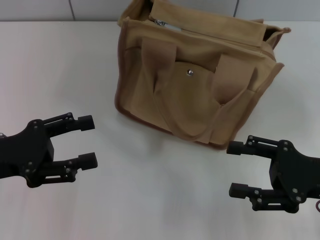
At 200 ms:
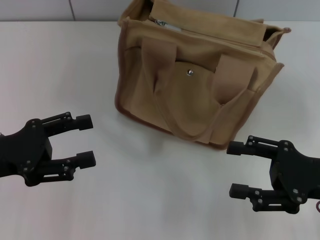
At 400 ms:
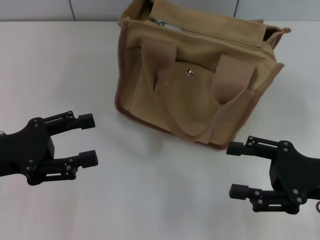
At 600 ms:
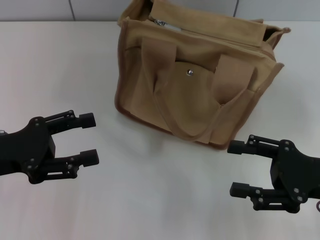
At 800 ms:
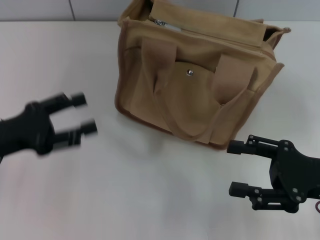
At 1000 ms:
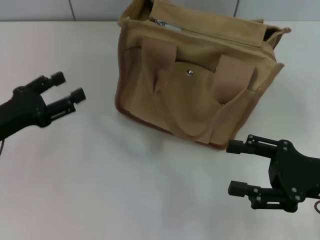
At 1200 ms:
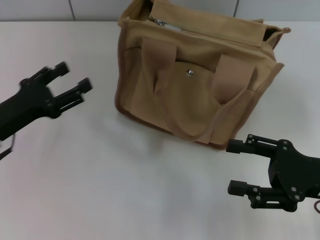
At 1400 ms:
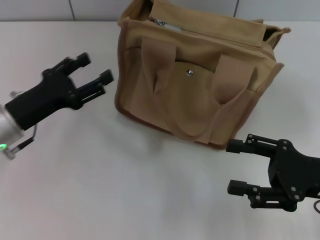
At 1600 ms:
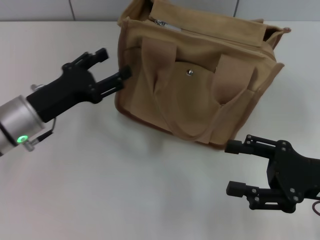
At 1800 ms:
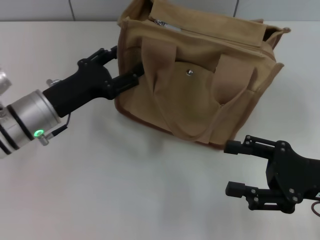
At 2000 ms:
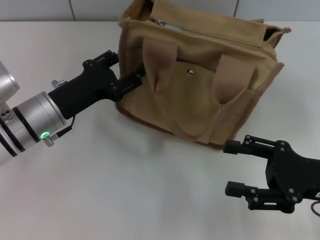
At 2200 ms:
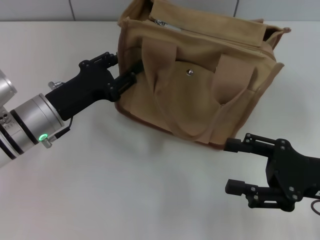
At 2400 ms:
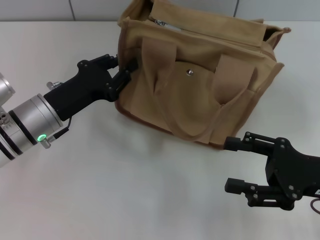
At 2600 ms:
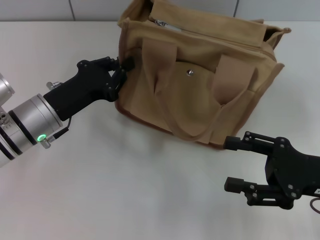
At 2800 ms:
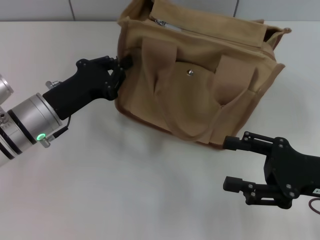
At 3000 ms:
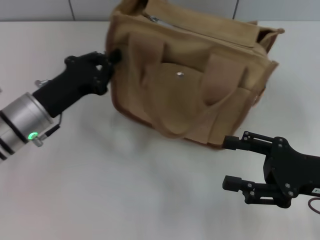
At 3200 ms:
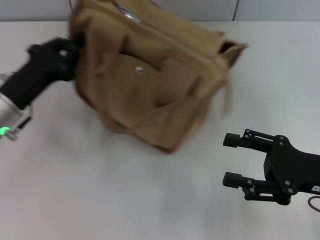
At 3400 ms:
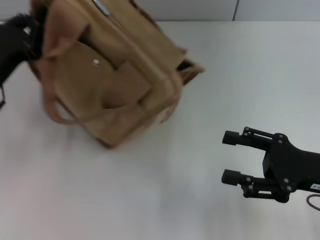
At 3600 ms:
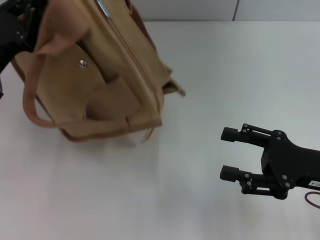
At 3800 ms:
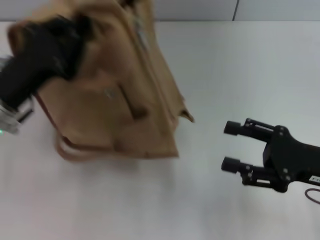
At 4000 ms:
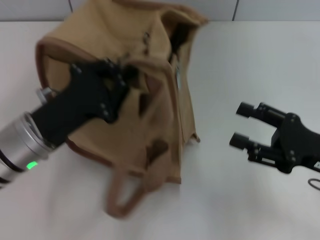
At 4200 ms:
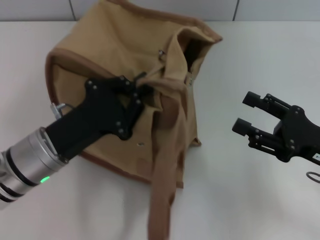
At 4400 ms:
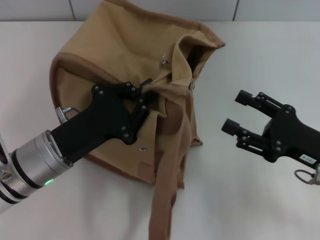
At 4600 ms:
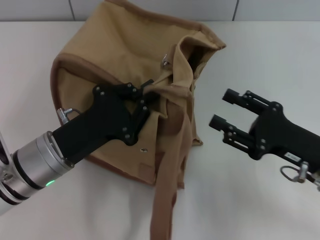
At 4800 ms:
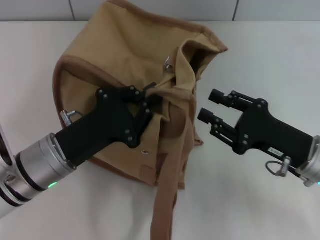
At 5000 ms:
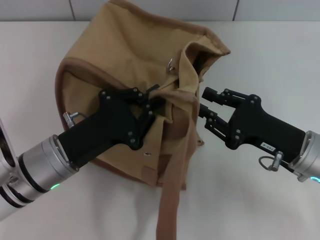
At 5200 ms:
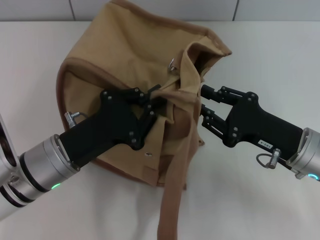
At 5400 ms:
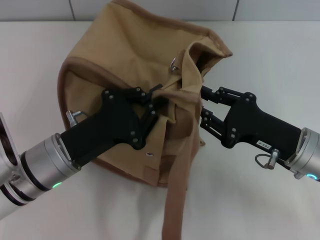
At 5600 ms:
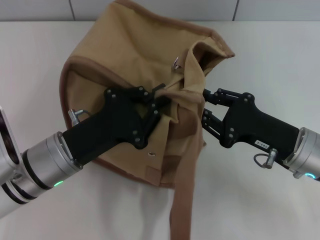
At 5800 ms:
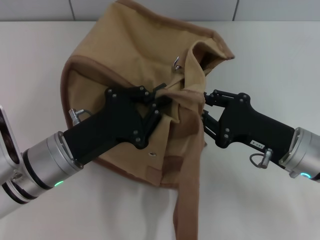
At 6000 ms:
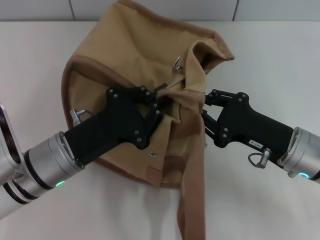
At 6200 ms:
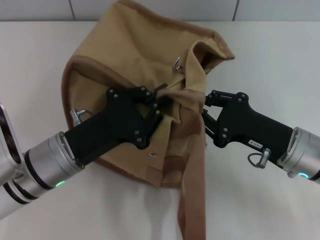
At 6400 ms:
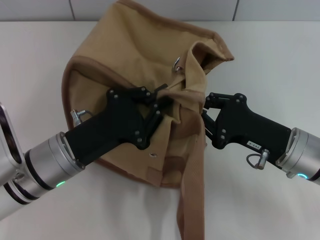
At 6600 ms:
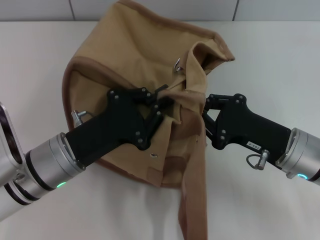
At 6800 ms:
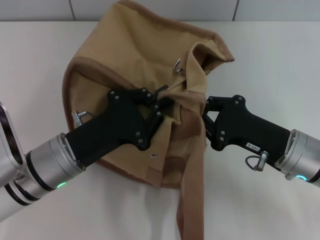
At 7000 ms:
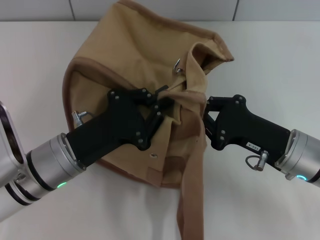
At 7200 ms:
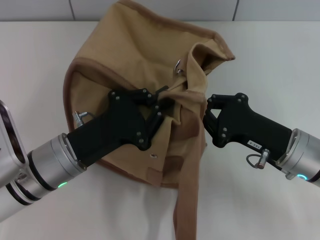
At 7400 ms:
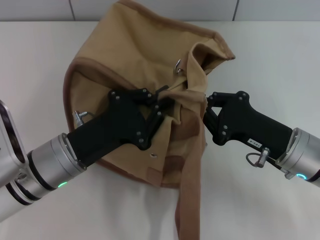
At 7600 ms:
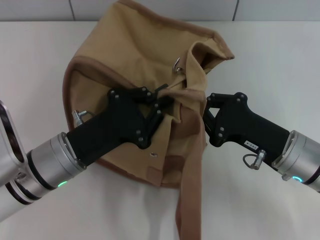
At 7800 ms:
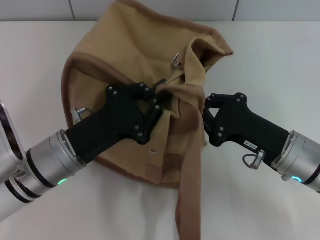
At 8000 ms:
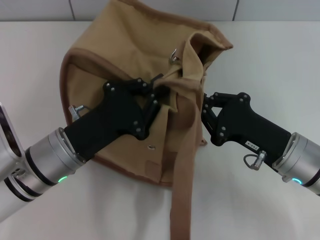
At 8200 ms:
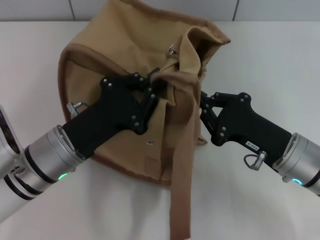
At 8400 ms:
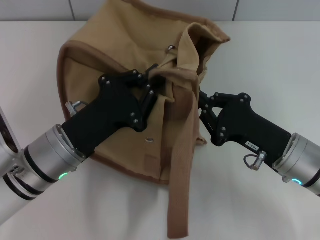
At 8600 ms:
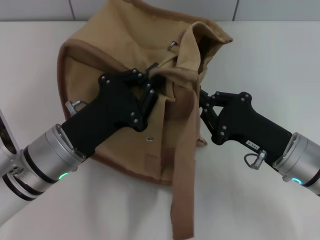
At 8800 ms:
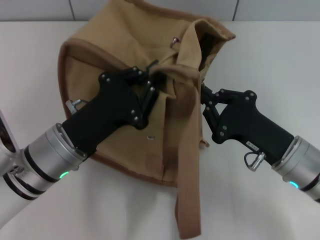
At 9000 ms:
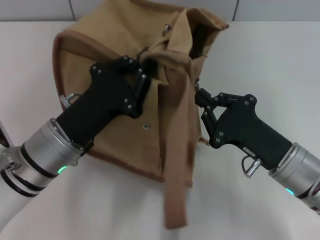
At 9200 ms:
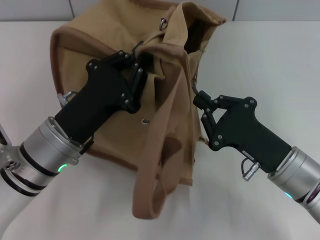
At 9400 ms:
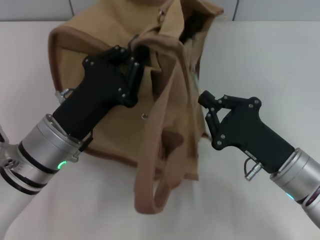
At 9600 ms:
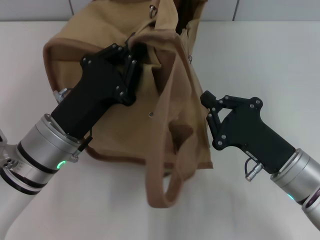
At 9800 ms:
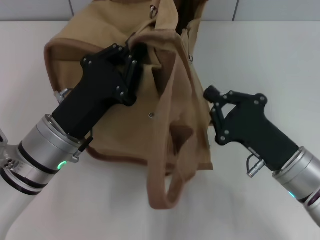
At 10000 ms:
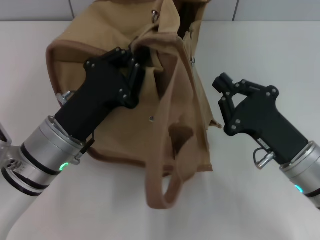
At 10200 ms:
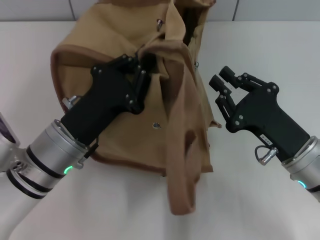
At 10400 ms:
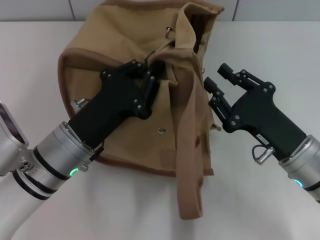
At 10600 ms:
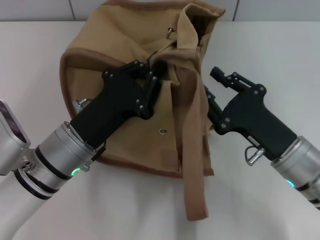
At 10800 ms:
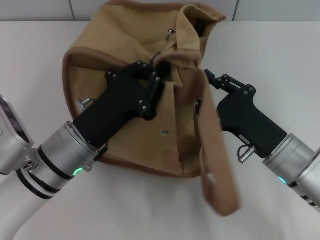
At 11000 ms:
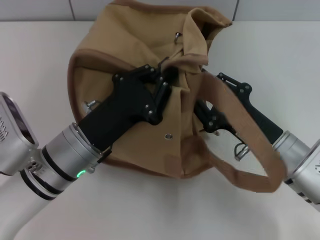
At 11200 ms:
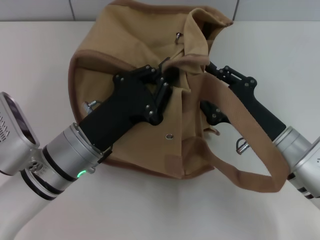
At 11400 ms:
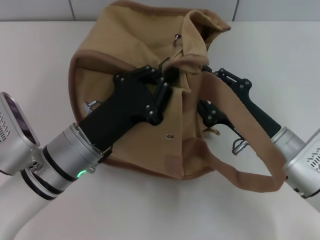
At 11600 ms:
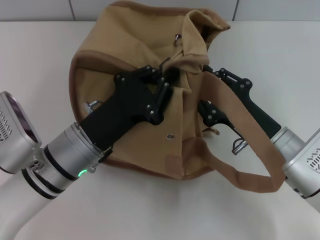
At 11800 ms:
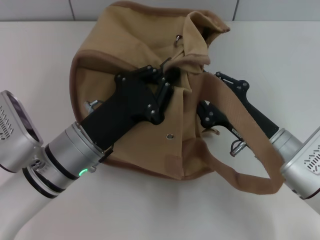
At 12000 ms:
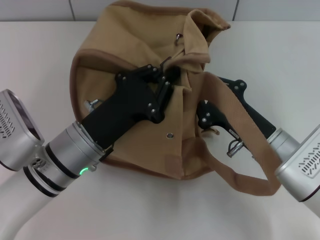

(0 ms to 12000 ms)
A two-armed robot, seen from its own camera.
0 ms - 1600 ms: The left gripper goes about 10 cm forward and to the right.
1600 ms - 3000 ms: The left gripper closes.
3000 ms - 4400 ms: The left gripper is displaced backward by some 5 cm.
4400 ms - 6000 ms: The right gripper shifts about 5 cm to the left, and closes.
6000 ms - 7600 ms: Both grippers stay put.

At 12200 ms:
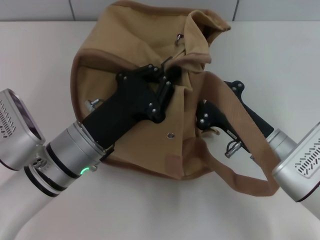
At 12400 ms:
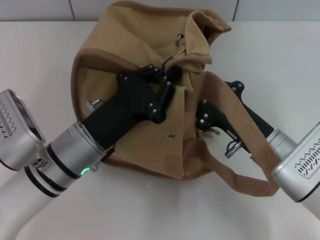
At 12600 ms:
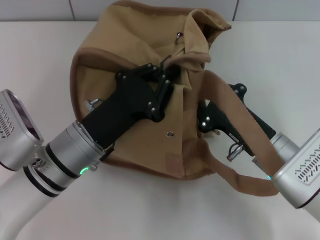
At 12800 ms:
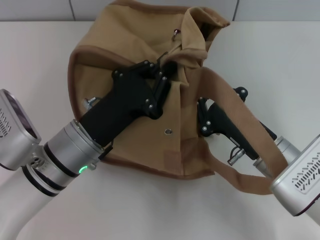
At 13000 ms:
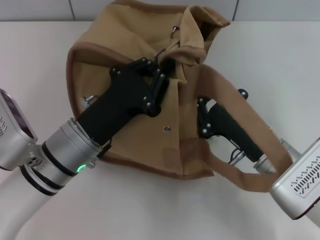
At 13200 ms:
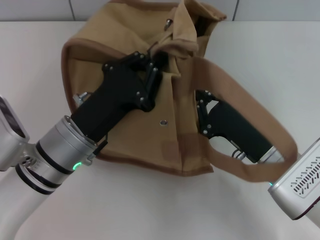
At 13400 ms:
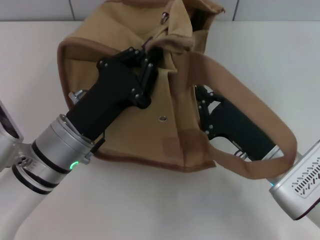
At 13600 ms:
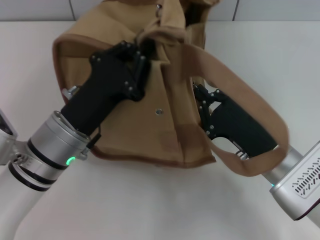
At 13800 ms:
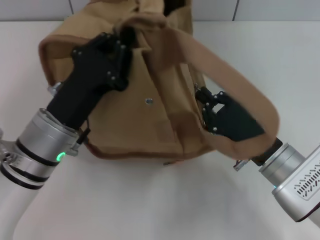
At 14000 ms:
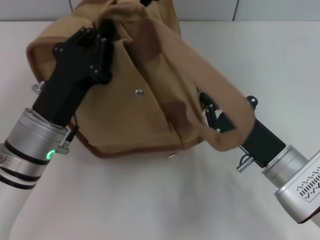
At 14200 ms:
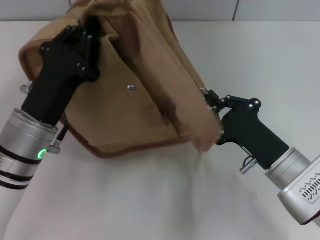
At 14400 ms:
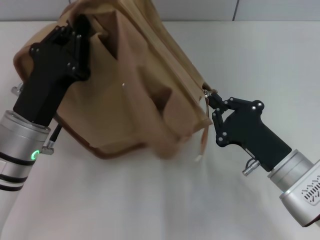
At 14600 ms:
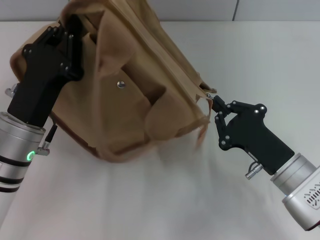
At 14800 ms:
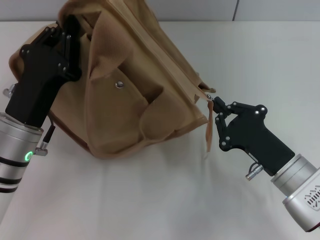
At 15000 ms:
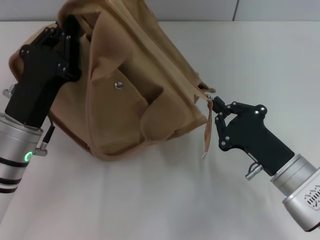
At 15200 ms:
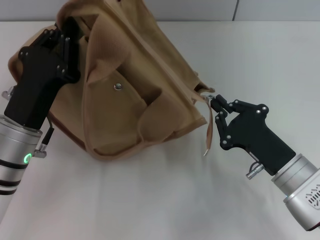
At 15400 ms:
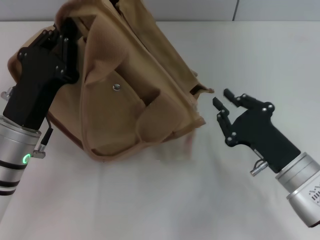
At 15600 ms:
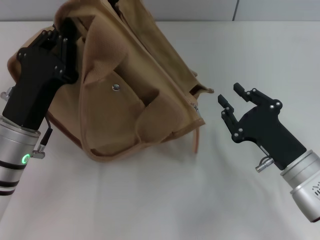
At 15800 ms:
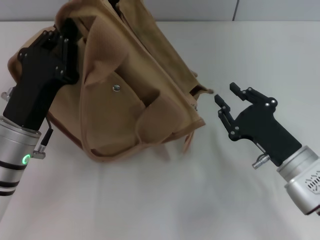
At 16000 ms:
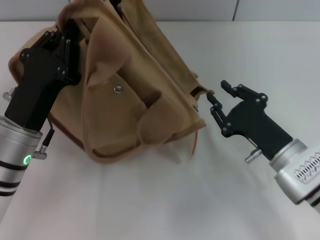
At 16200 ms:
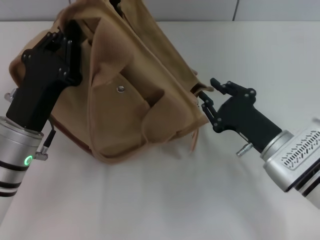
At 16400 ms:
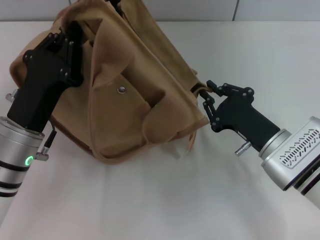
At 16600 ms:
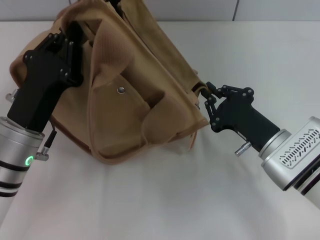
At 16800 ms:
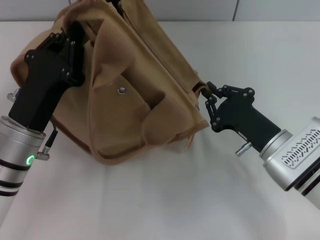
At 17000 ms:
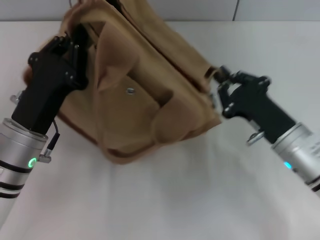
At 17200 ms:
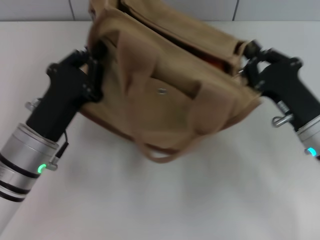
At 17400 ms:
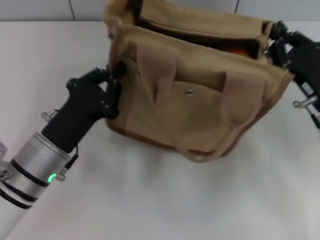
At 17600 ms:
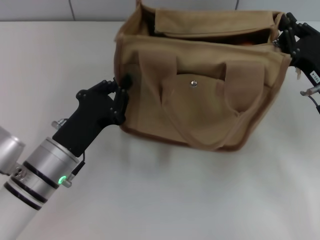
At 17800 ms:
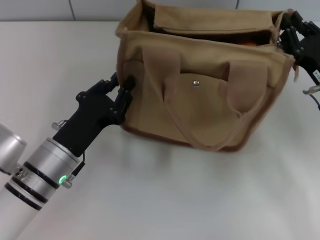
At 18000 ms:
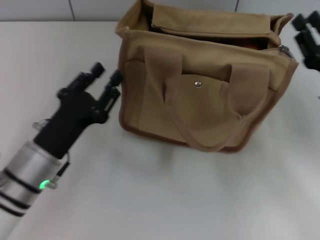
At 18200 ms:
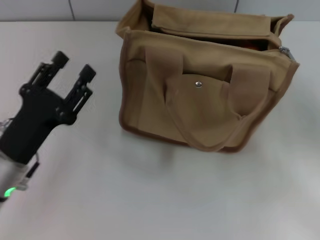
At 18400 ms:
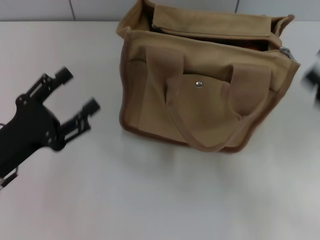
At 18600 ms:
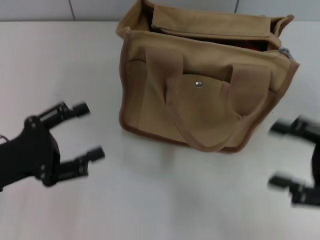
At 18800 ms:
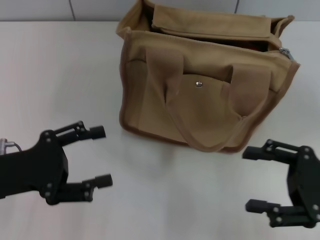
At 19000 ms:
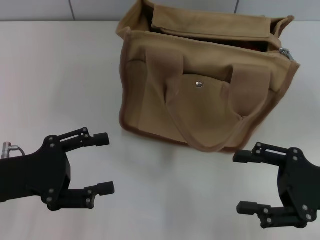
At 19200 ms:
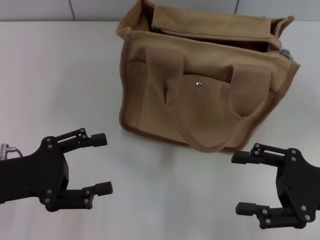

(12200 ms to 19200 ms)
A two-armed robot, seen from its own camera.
Step, 12200 ms - 15800 ms: Pull open the zipper with your right hand.
Step, 16000 ms - 17800 ms: Grab the bag with your left hand.
15000 ms - 16400 ms: The right gripper opens.
16400 ms - 17800 ms: The right gripper heads to the right, covering roughly 10 cm.
17800 ms - 19200 ms: The left gripper travels to the left and upward by roughly 10 cm, and opens up. The right gripper moves backward, some 10 cm, and opens up.

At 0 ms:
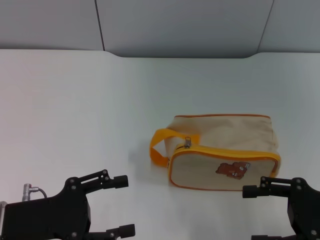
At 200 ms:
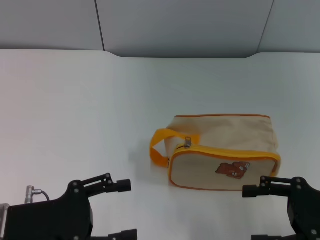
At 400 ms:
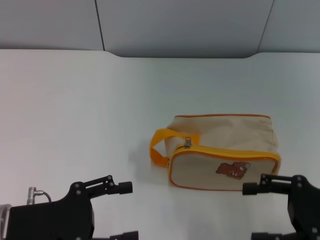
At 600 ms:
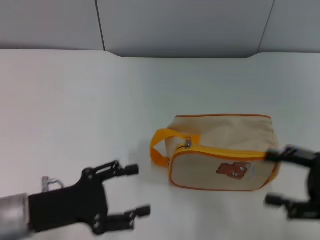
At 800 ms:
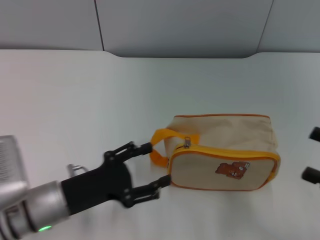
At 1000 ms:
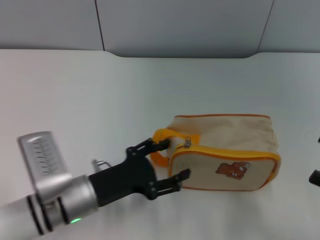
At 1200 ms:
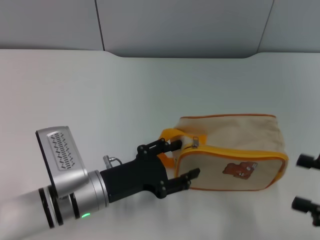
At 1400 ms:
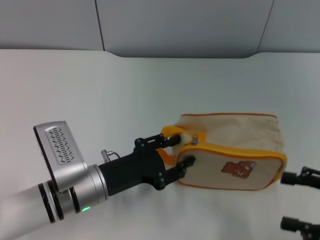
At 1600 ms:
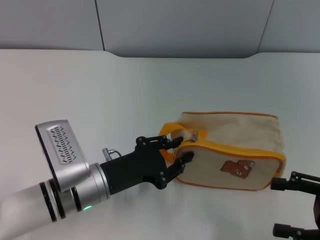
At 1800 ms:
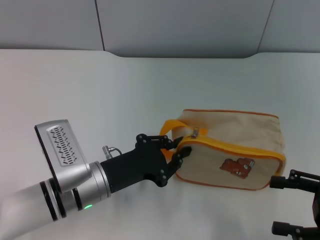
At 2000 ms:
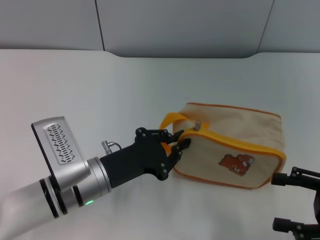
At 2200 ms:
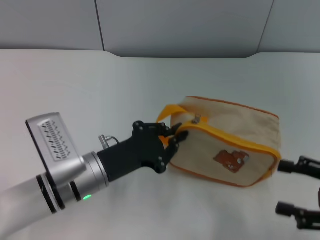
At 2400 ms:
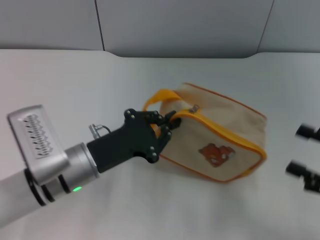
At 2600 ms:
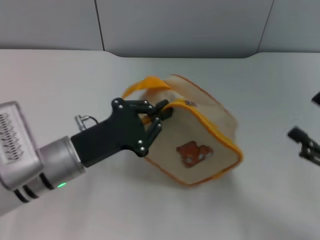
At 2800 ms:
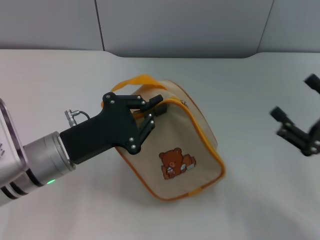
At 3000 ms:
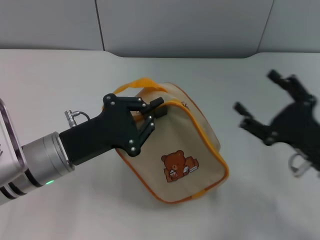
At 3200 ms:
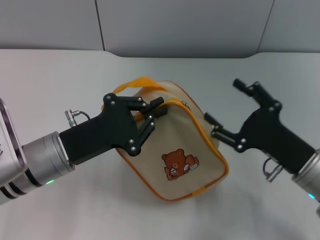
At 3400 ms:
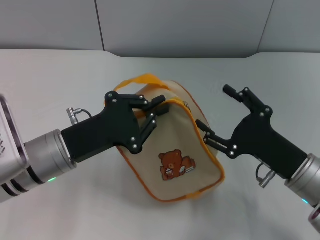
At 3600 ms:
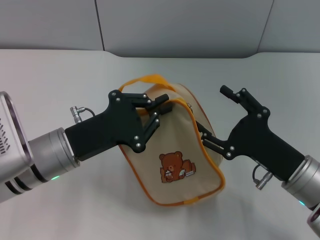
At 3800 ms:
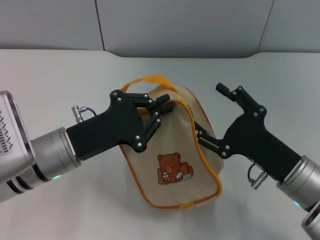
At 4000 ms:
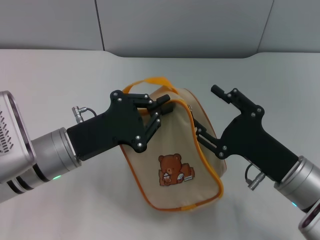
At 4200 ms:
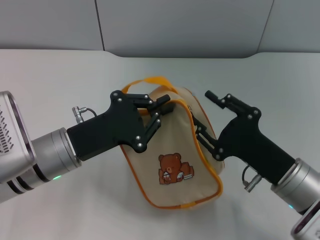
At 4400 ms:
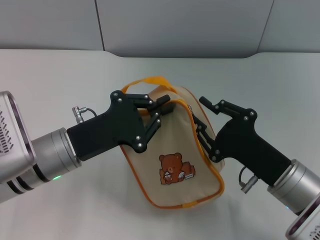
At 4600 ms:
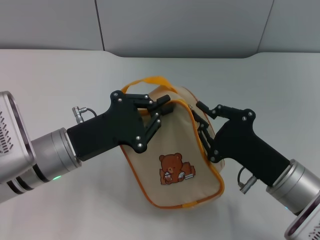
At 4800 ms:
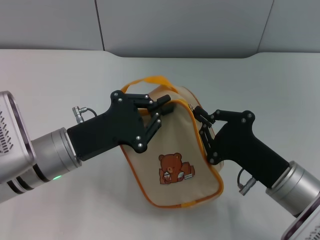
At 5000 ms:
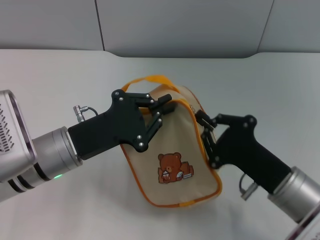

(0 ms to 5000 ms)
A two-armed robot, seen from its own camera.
Step, 0 ms - 2800 ms: Pick up the bag with left gripper.
0 ms - 1600 ms: The left gripper goes approximately 10 cm to the right and forward.
1600 ms - 3400 ms: The right gripper shifts roughly 10 cm to the left and forward. Meanwhile the left gripper shifts some 5 cm upward, and closes its fingers.
3400 ms - 5000 ms: The right gripper closes up.
